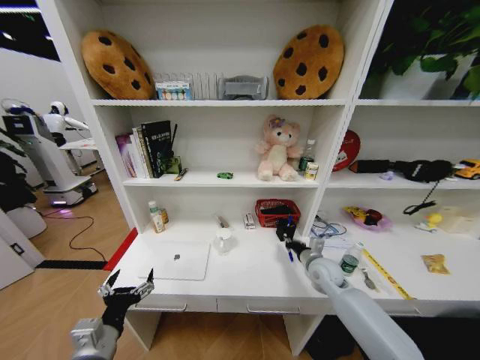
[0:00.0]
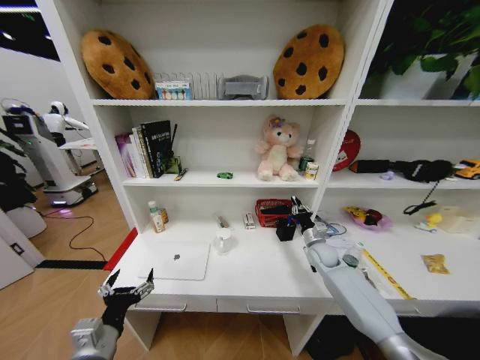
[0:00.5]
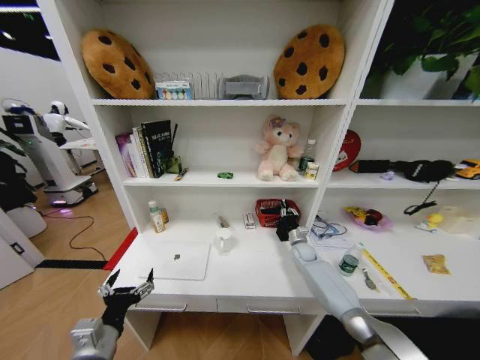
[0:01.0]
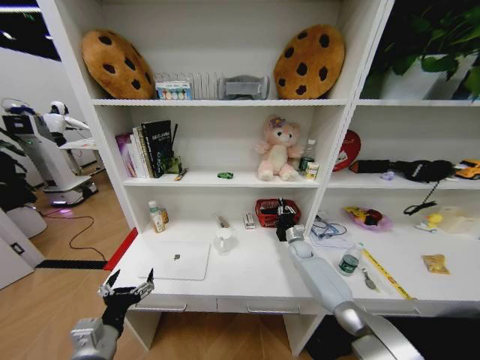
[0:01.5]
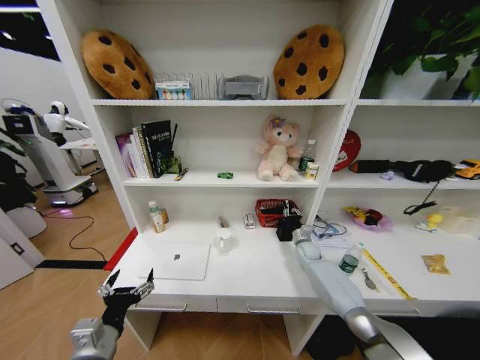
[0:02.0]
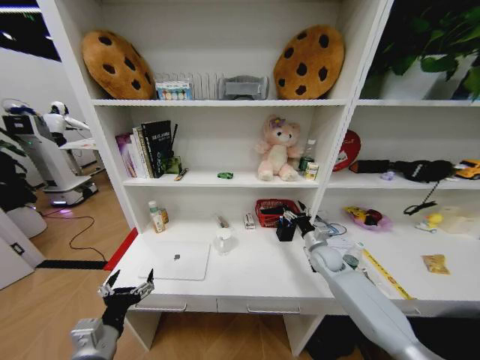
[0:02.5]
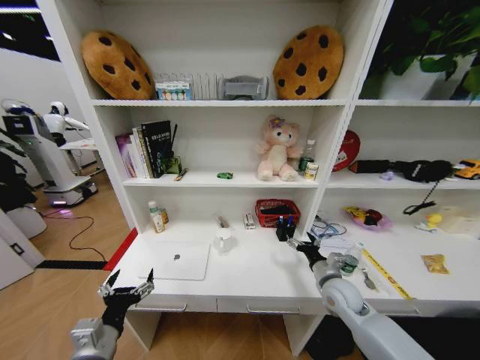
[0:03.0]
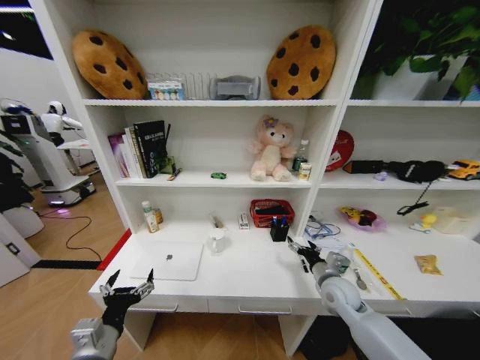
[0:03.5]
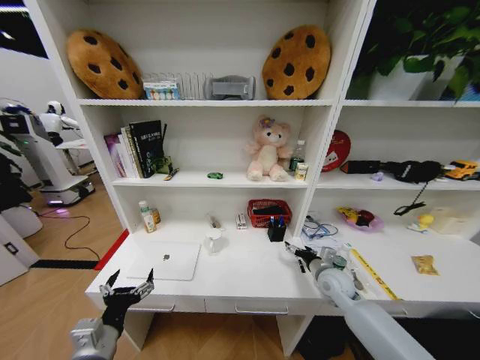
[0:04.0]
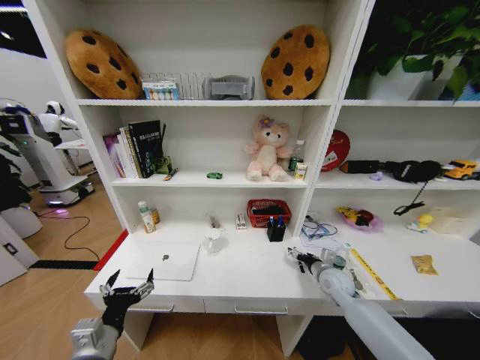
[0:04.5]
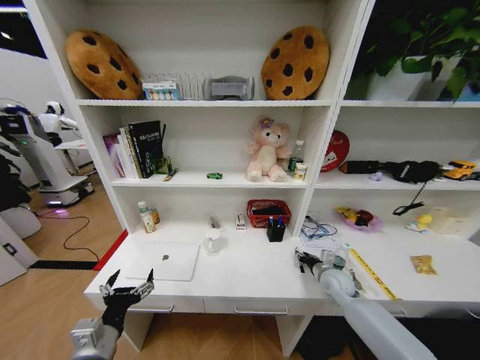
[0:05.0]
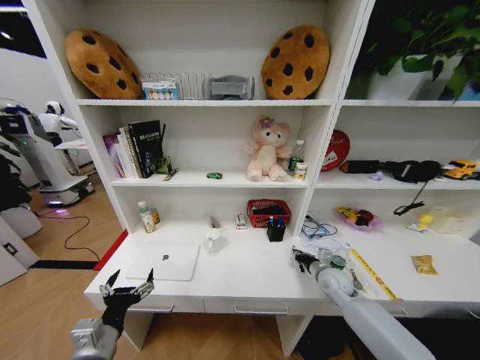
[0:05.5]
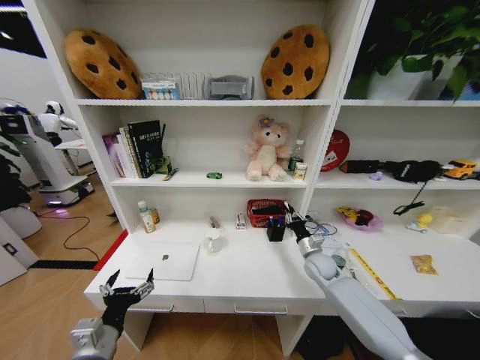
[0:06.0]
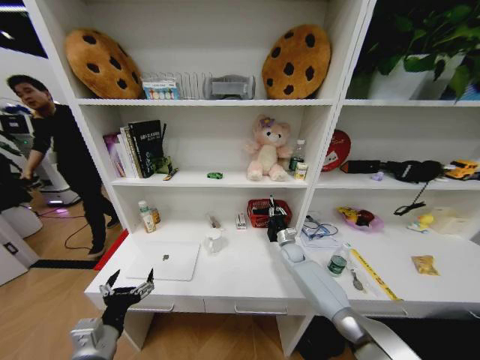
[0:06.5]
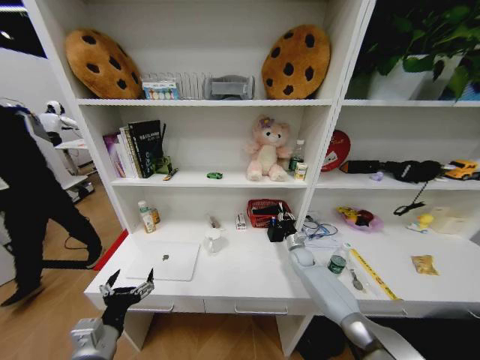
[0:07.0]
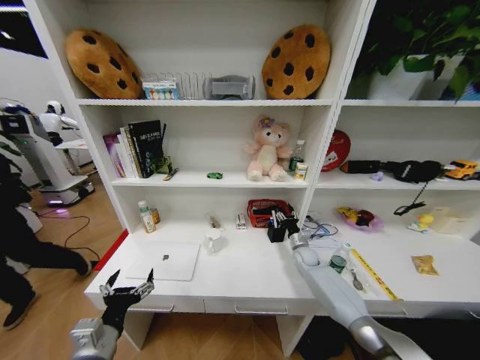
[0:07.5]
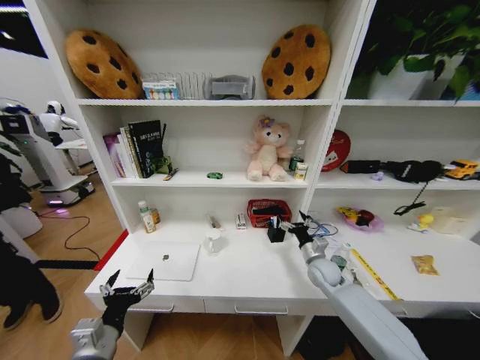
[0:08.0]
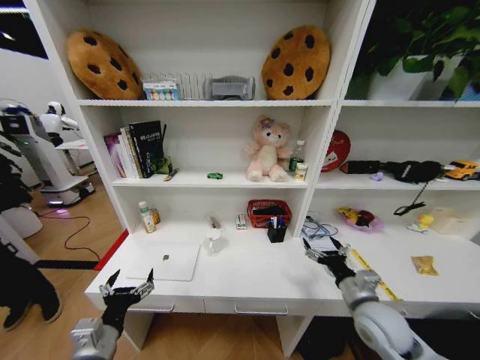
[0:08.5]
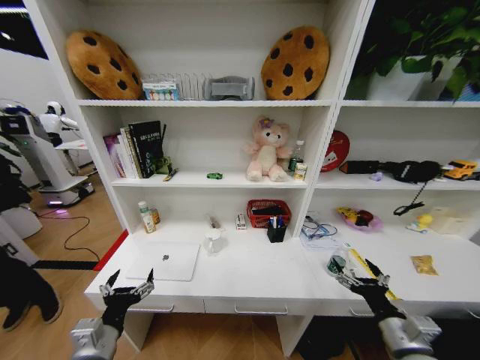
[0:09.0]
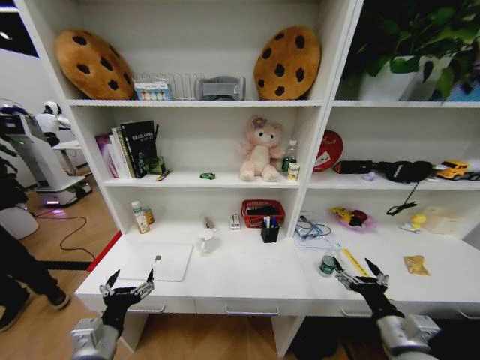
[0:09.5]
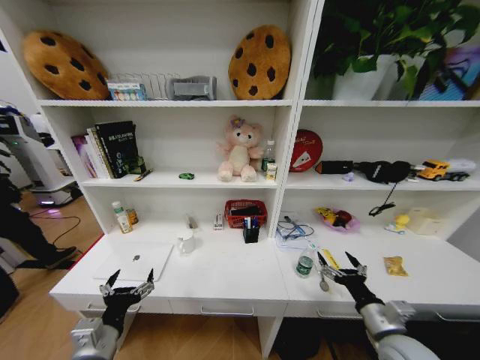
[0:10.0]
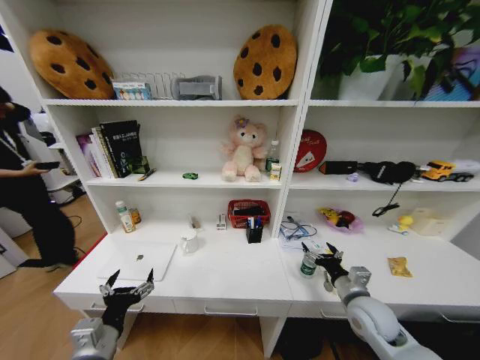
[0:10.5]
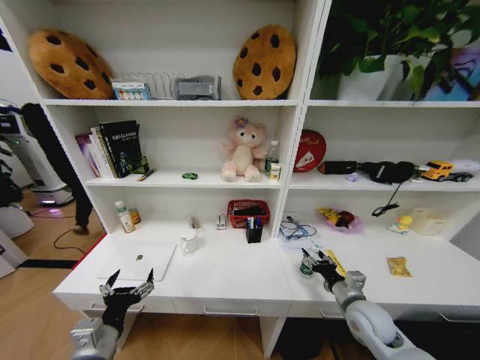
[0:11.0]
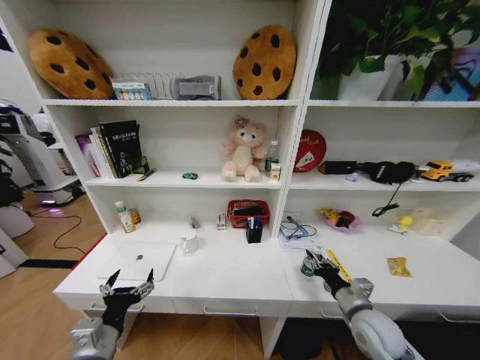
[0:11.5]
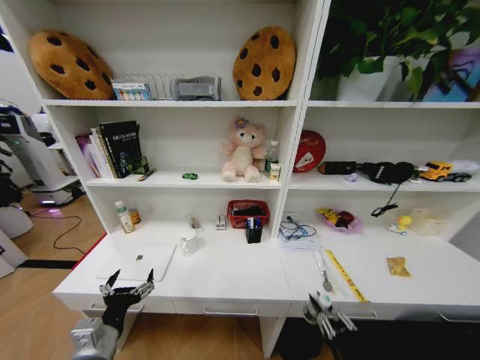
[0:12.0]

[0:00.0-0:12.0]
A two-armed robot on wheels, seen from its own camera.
Task of the whole recording: Organize the objects on the table.
0.0 to 2.0 s: The right gripper travels forward and downward by about 15 cm.
2.0 to 4.0 s: The right gripper moves backward, approximately 15 cm, and opens.
4.0 to 6.0 s: The right gripper shifts approximately 5 cm forward, and closes its fingers.
6.0 to 8.0 s: The right gripper reaches roughly 10 cm forward, then returns, and opens.
8.0 to 10.0 s: The right gripper moves backward, some 20 cm.
10.0 to 12.0 s: The right gripper heads backward and downward, covering some 15 cm, and closes its fingers.

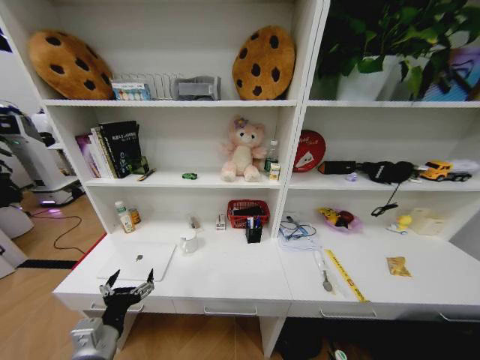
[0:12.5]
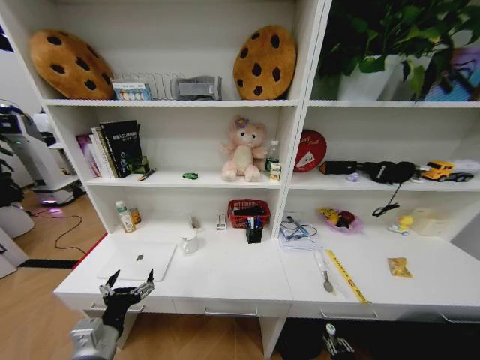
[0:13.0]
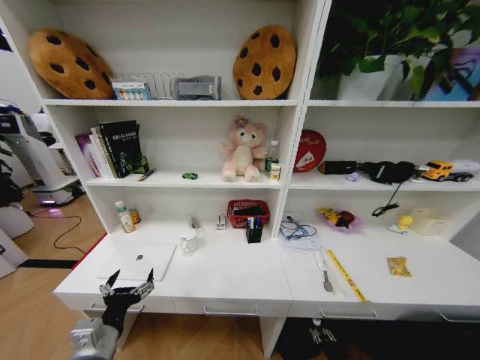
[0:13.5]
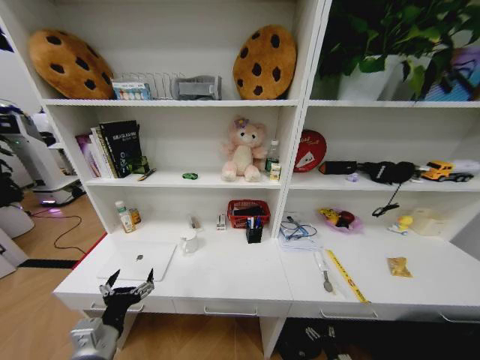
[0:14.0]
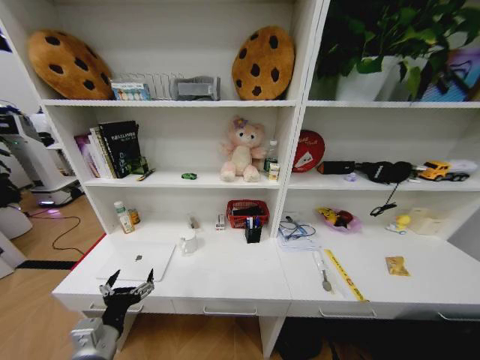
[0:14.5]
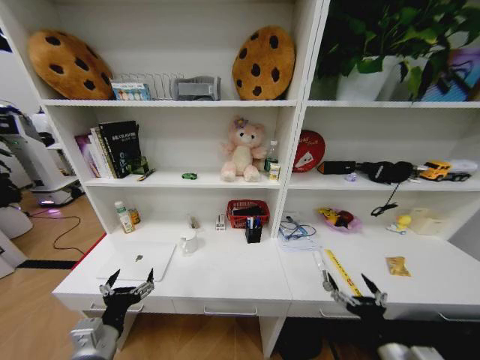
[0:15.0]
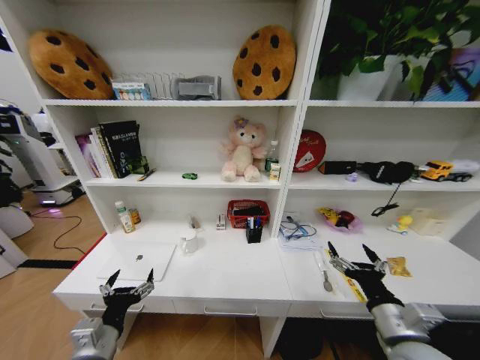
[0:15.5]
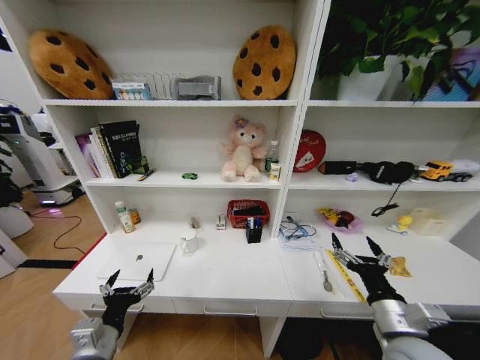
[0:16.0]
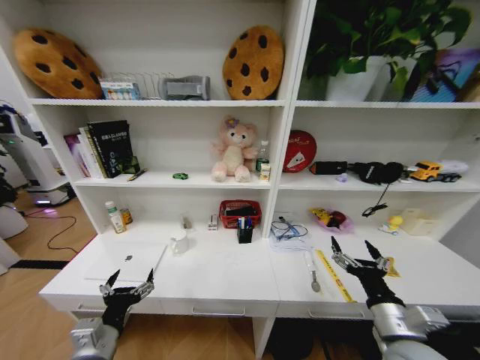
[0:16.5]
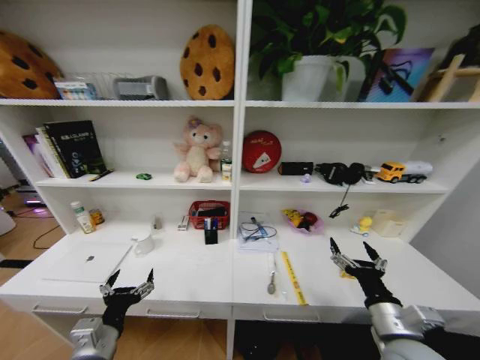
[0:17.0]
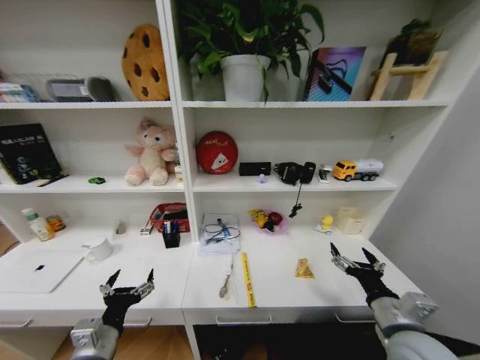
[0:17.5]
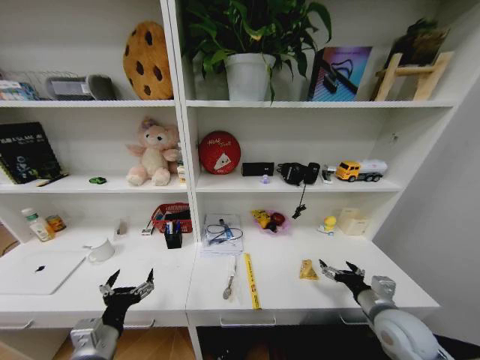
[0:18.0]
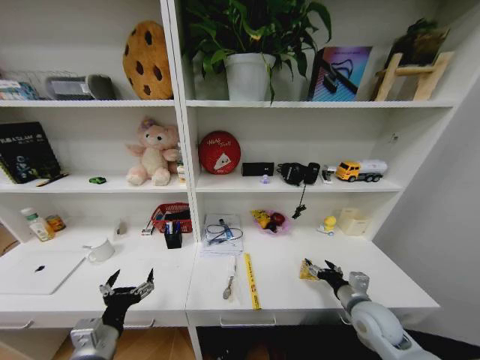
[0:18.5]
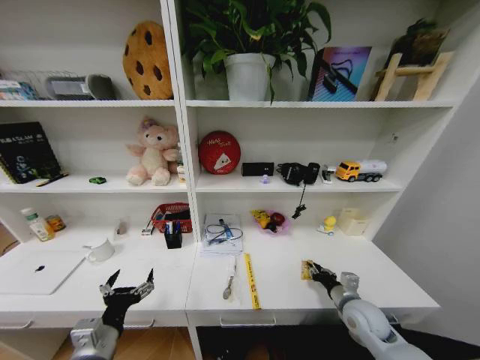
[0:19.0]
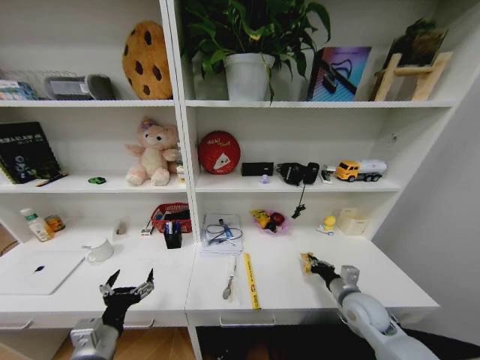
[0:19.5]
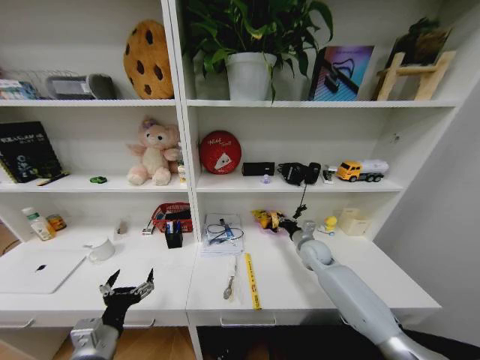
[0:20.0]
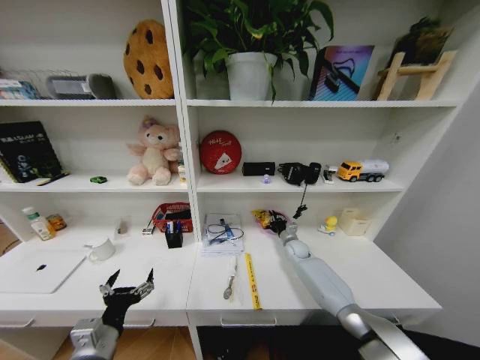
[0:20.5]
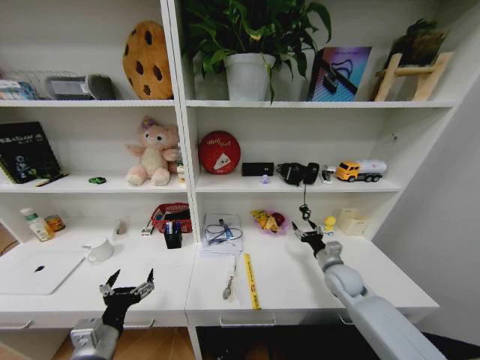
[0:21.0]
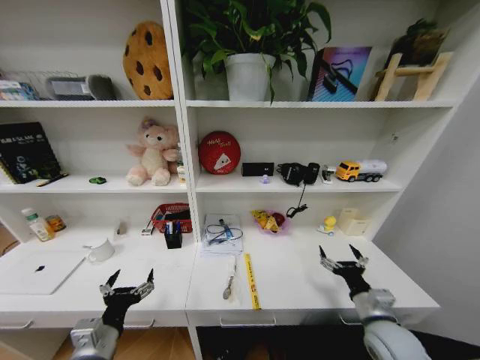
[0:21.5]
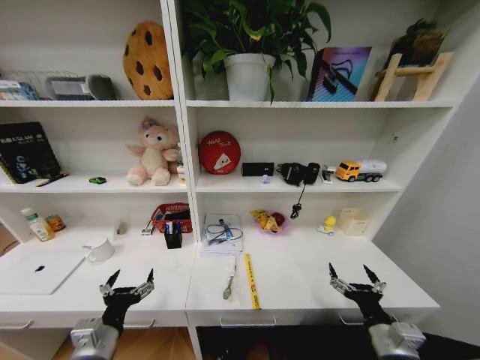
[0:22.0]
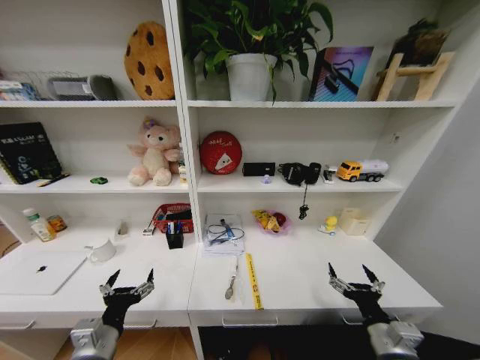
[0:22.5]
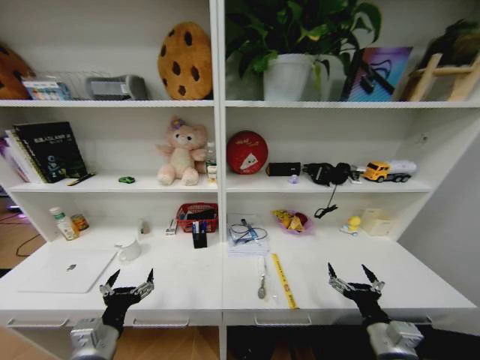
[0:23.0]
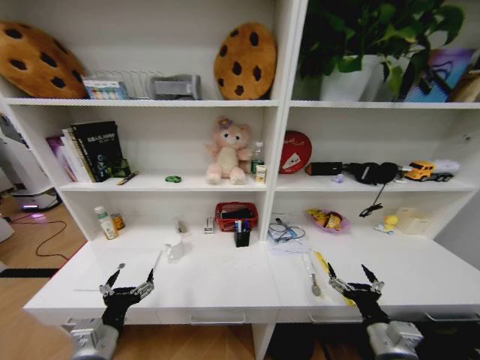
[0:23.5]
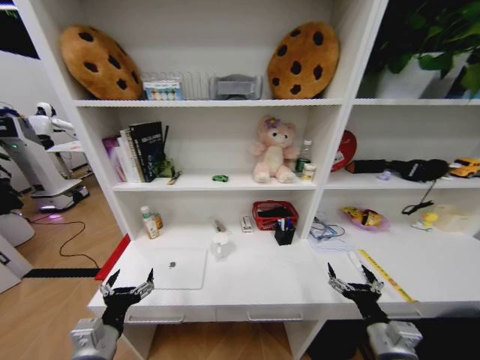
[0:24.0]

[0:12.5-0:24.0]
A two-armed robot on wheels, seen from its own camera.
Task of the whole recording: Organize the objects on the table.
12.5 to 14.5 s: The right gripper travels downward by about 5 cm, and opens its fingers.
14.5 to 16.5 s: The right gripper moves upward and forward, approximately 35 cm.
16.5 to 18.5 s: The right gripper travels forward and downward by about 15 cm.
18.5 to 20.0 s: The right gripper shifts some 20 cm forward, and closes its fingers.
20.0 to 22.0 s: The right gripper heads backward, covering approximately 35 cm, and opens its fingers.

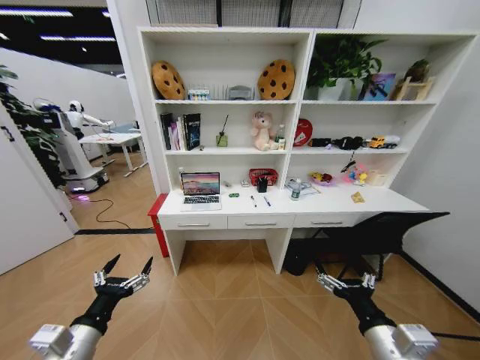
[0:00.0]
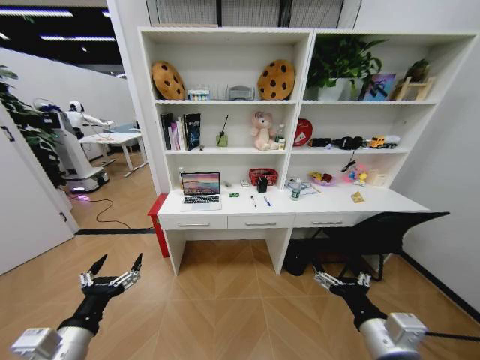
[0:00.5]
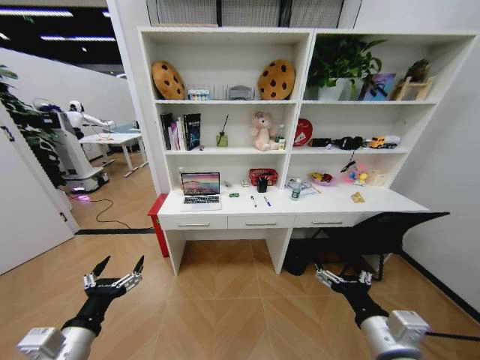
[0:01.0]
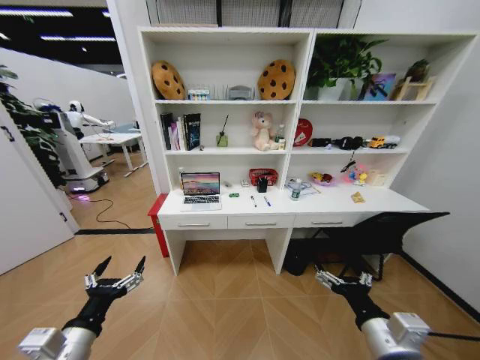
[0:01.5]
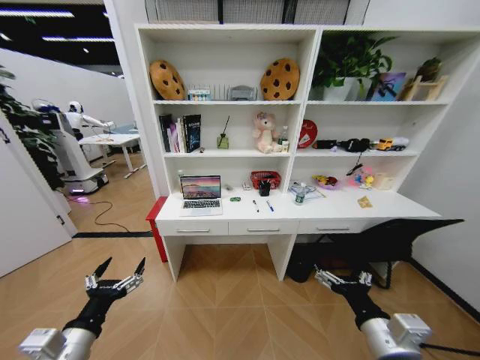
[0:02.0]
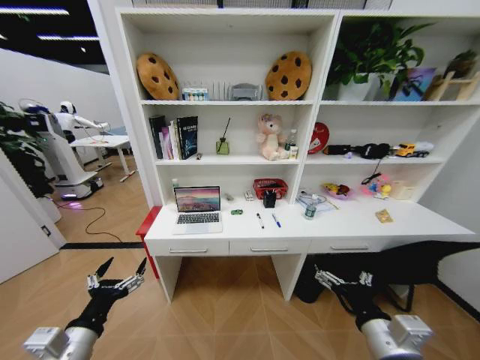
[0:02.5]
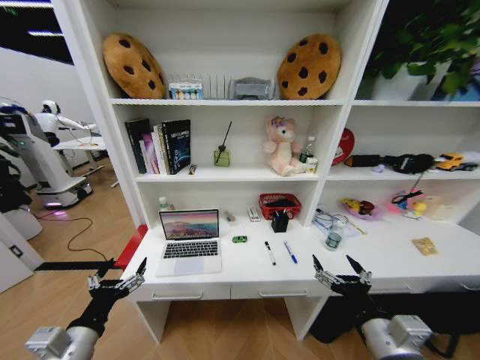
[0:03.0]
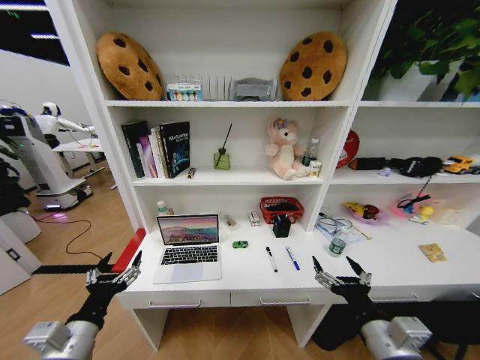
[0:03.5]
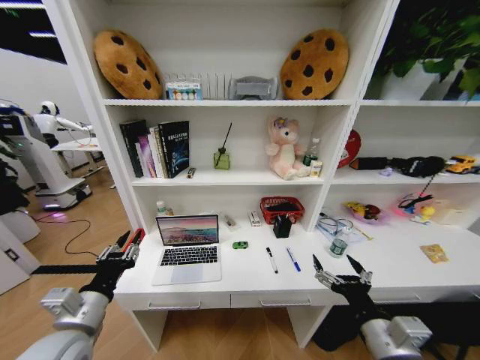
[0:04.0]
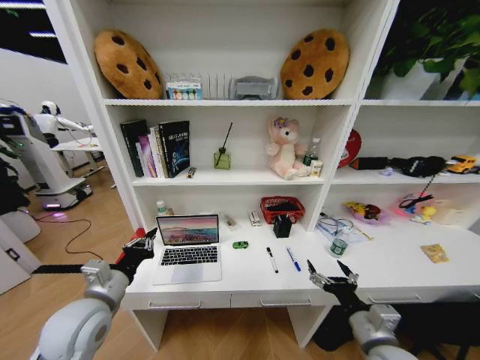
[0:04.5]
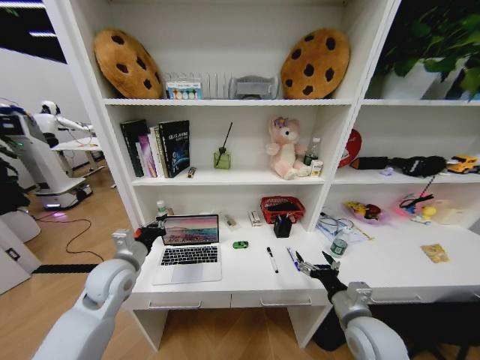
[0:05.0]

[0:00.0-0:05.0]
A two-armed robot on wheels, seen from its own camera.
Task of the whole recording: Organize the objects on the table.
2.5 to 5.0 s: The left gripper shifts some 20 cm forward, and closes its fingers. Meanwhile the right gripper heads forward and downward, covering approximately 10 cm.
